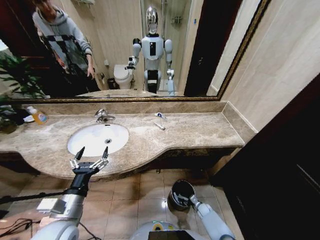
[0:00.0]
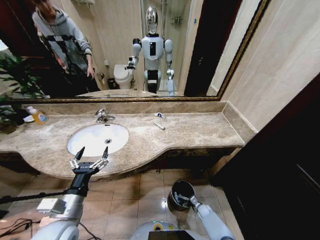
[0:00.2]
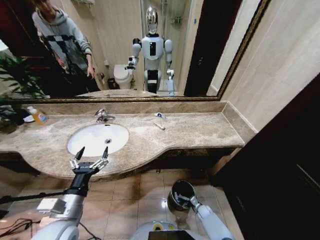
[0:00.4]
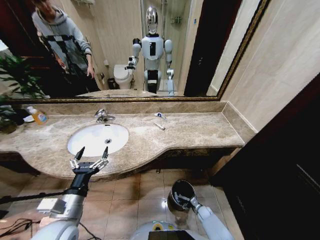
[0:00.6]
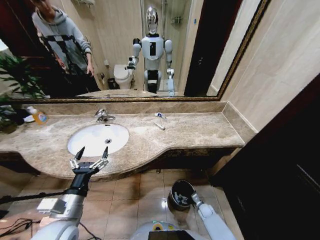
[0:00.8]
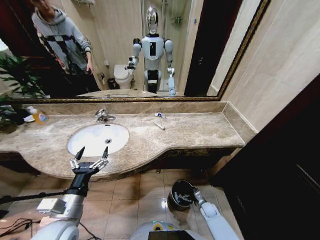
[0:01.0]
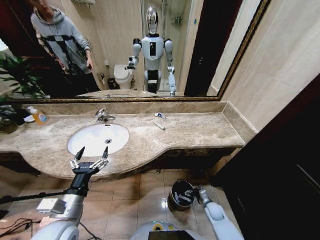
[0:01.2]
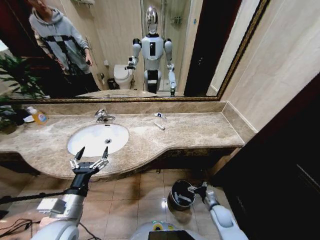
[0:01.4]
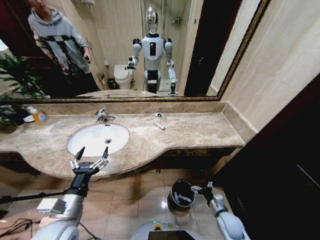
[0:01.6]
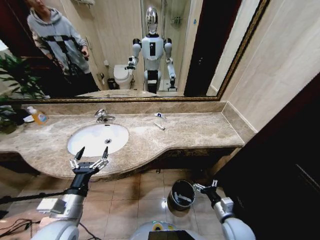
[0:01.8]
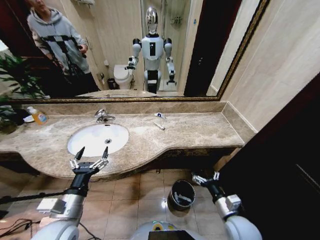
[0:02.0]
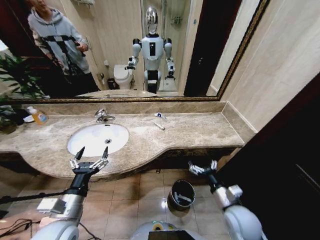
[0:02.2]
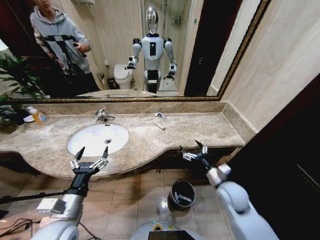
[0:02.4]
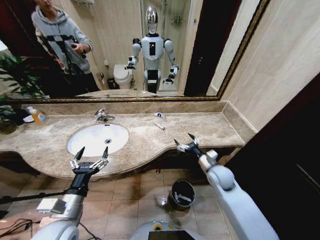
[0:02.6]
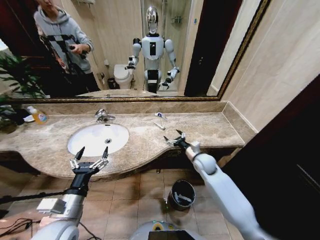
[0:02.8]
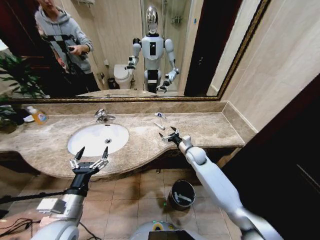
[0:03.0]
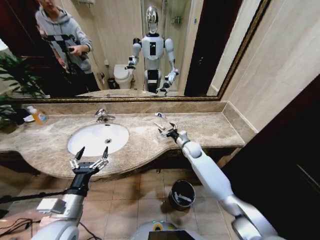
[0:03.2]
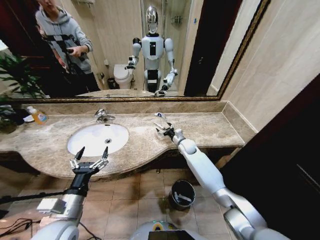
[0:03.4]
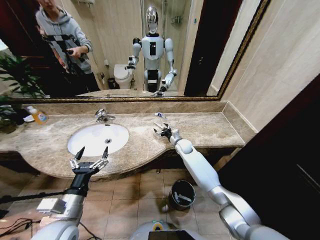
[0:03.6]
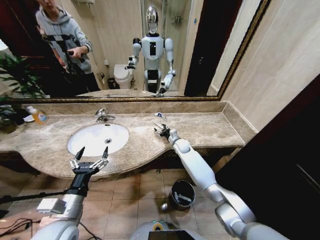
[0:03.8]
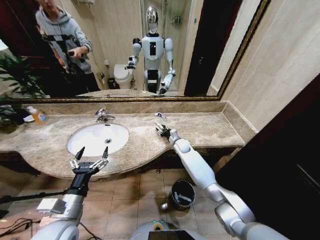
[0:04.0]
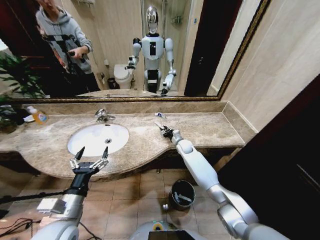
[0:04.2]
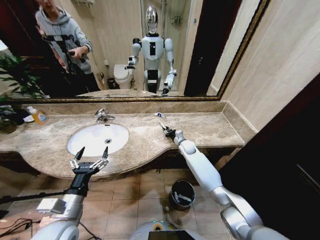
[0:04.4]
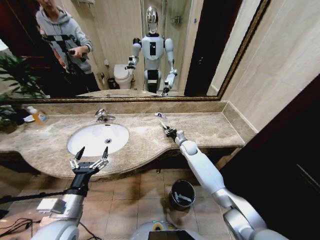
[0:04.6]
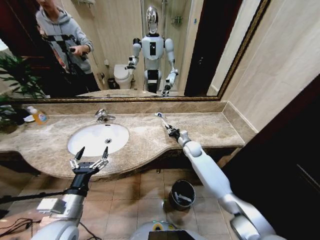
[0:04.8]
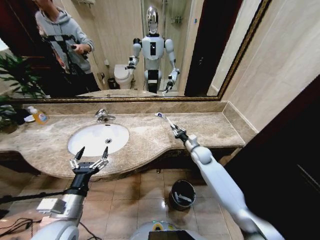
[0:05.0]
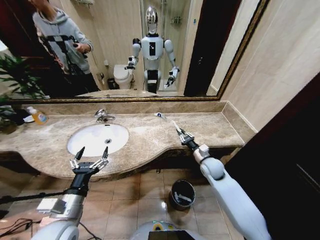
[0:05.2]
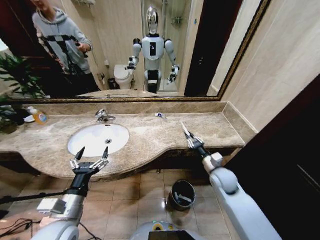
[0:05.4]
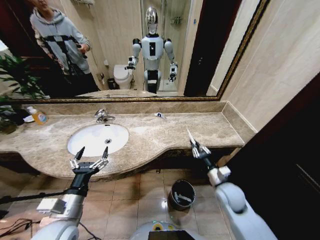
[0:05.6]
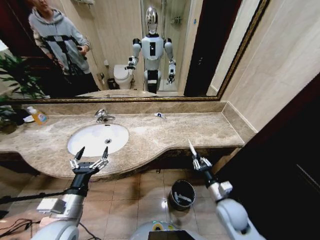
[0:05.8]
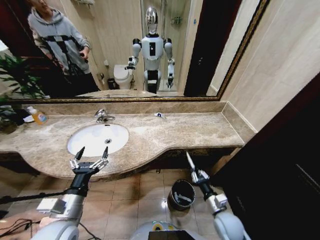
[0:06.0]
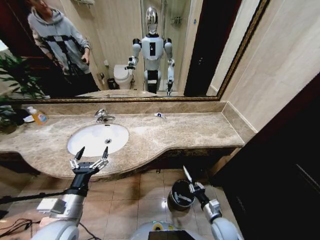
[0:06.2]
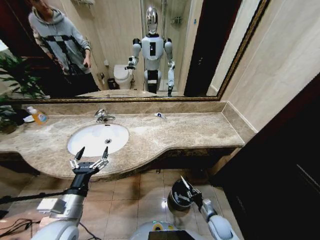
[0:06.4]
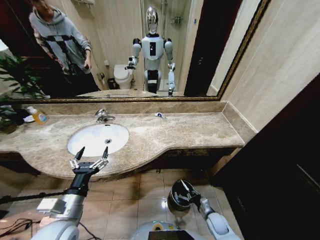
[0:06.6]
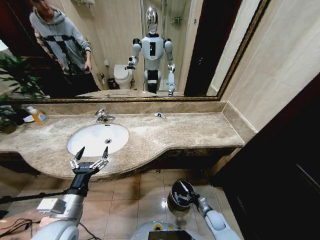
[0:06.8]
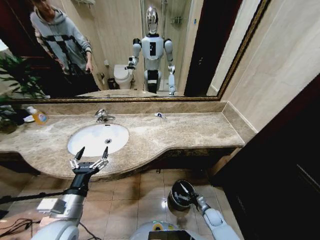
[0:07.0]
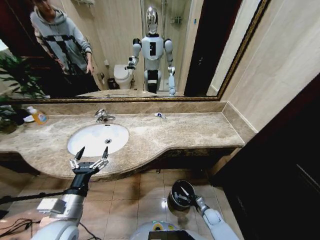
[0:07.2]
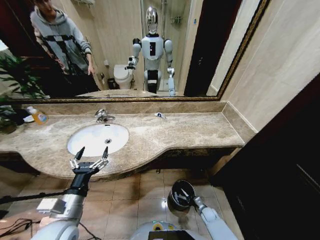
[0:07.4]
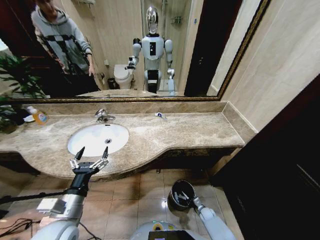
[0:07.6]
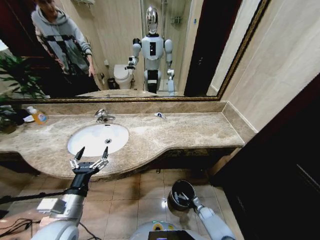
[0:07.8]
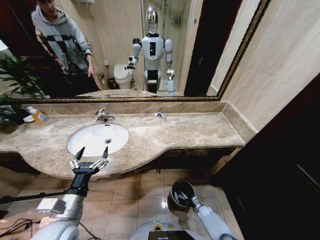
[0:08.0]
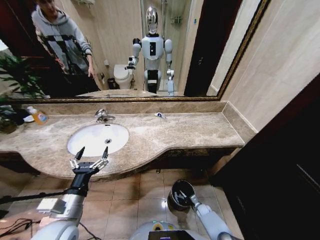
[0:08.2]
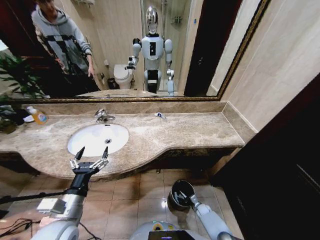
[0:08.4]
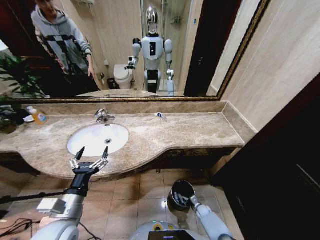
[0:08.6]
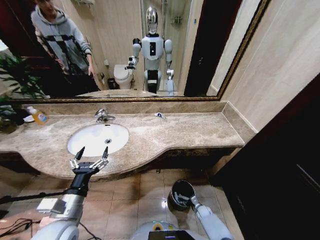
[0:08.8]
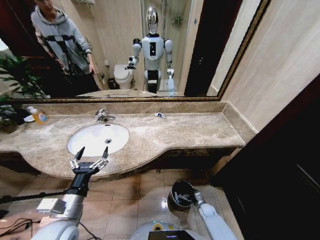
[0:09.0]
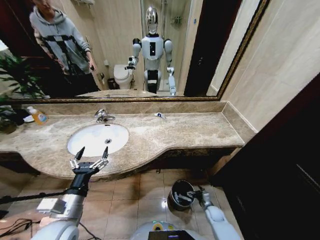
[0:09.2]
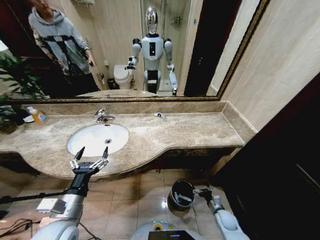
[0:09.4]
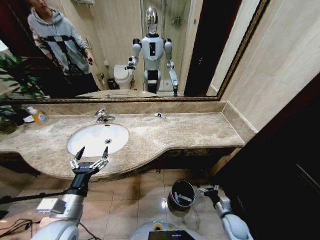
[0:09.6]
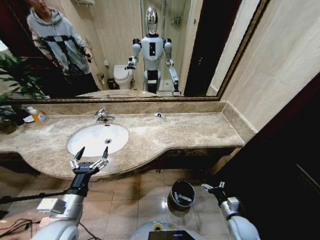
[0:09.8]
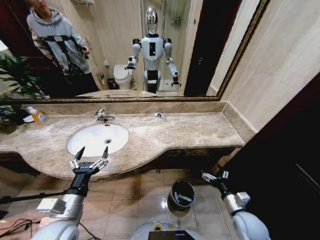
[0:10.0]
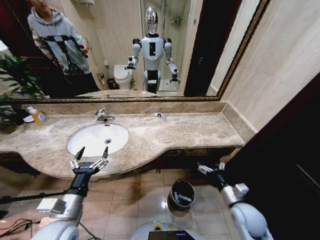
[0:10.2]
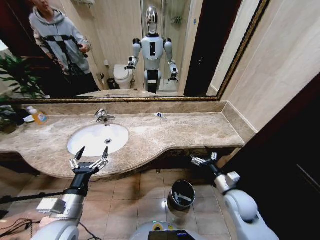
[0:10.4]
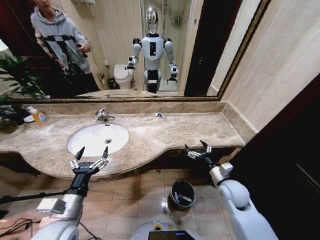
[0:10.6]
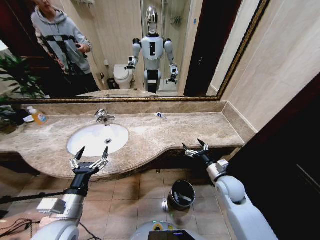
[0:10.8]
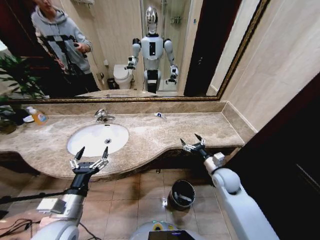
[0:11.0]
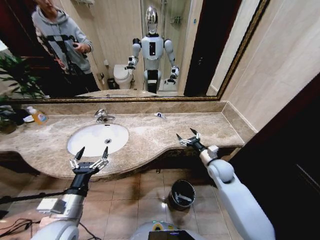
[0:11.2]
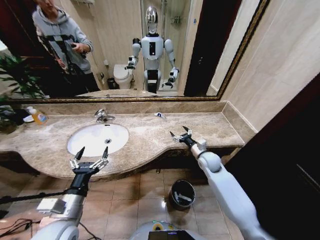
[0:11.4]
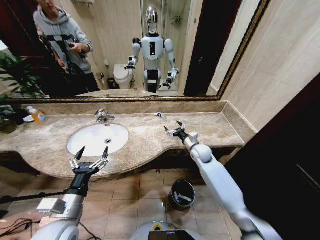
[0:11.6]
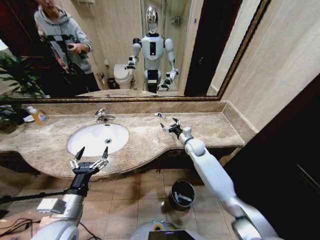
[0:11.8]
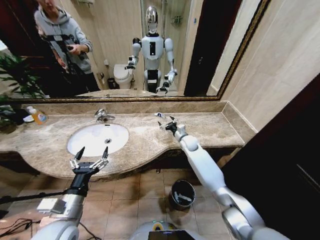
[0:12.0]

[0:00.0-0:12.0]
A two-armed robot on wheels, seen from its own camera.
Task of the whole recording: Pick up the trash from the sink and place it in the trash bin.
0:00.0 to 0:01.6: The right gripper moves upward, roughly 20 cm, and opens.
0:01.6 to 0:03.0: The right gripper shifts roughly 30 cm forward, upward and to the left.
0:03.0 to 0:04.4: The right gripper travels forward by approximately 10 cm, and closes.
0:04.4 to 0:06.0: The right gripper moves backward, some 35 cm.
0:06.0 to 0:07.6: The right gripper moves downward, about 30 cm.
0:09.0 to 0:10.4: The right gripper goes some 35 cm upward.
0:10.4 to 0:12.0: The right gripper heads forward and to the left, covering some 30 cm.

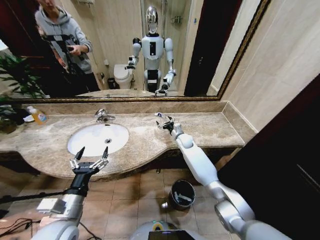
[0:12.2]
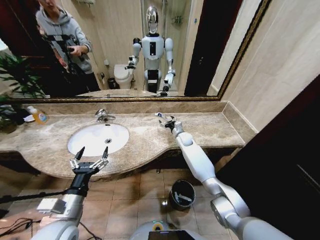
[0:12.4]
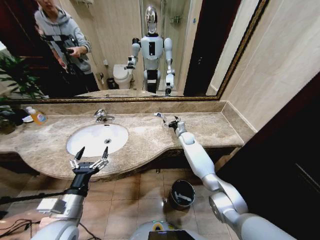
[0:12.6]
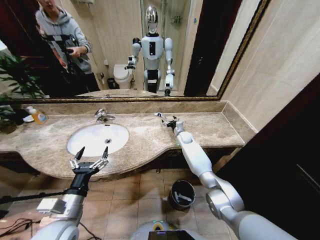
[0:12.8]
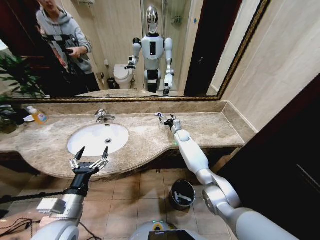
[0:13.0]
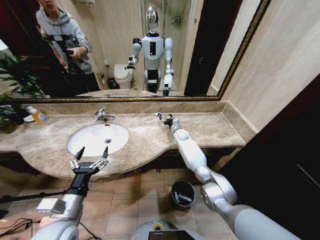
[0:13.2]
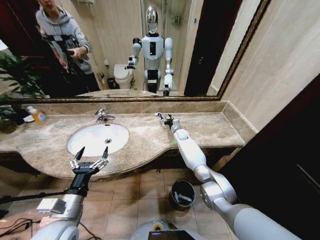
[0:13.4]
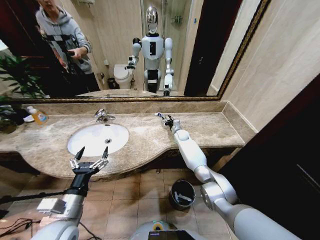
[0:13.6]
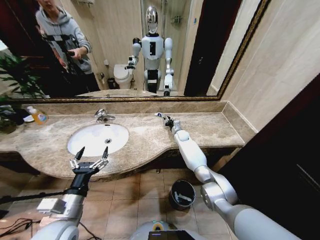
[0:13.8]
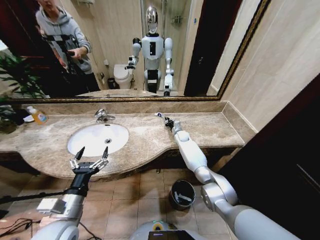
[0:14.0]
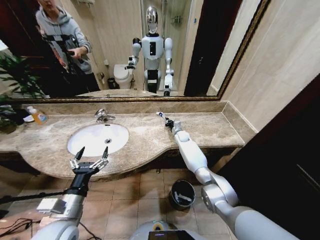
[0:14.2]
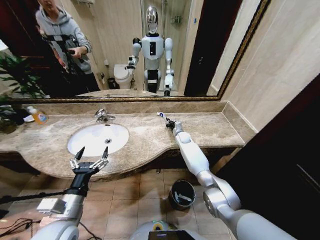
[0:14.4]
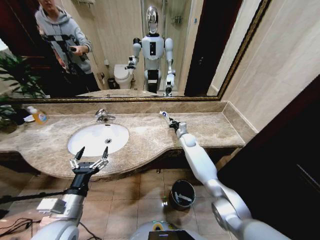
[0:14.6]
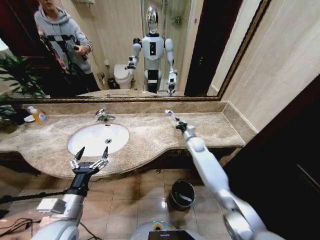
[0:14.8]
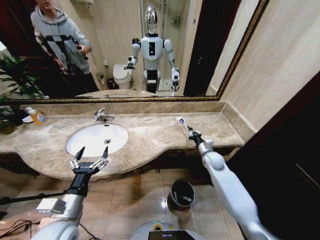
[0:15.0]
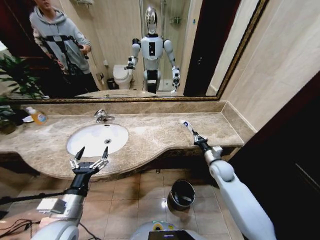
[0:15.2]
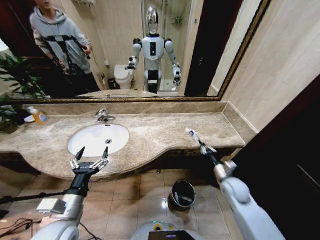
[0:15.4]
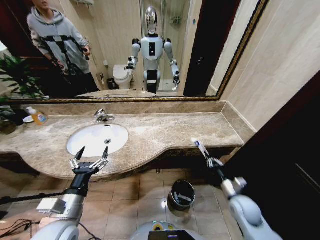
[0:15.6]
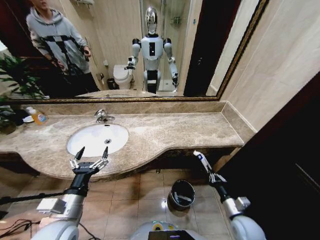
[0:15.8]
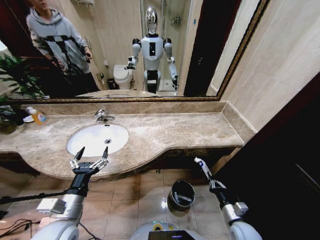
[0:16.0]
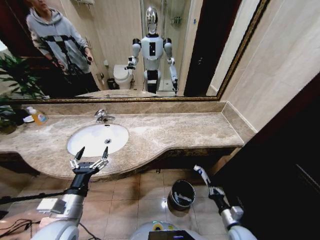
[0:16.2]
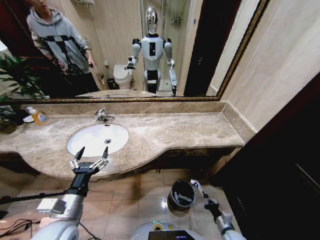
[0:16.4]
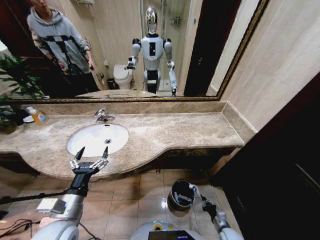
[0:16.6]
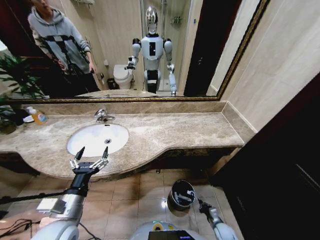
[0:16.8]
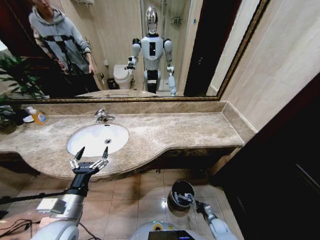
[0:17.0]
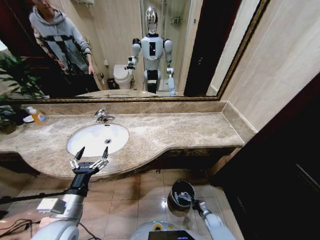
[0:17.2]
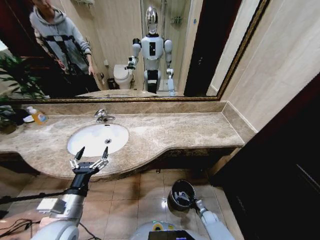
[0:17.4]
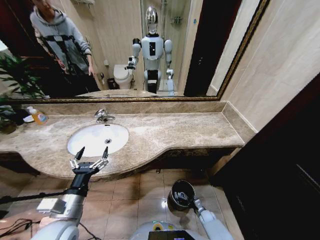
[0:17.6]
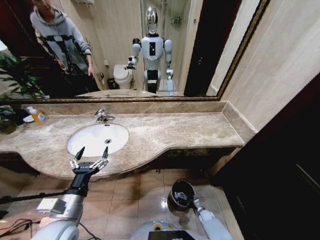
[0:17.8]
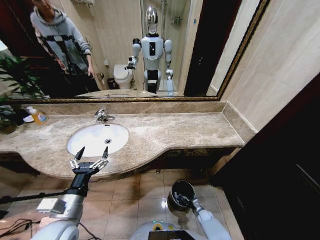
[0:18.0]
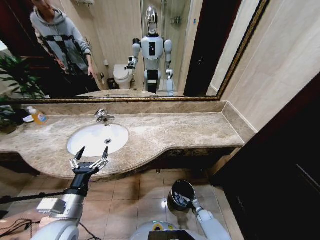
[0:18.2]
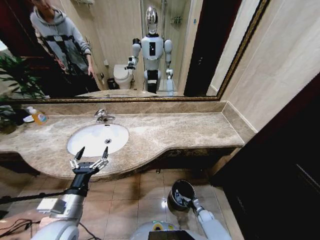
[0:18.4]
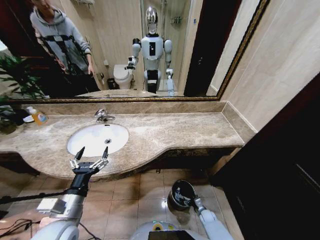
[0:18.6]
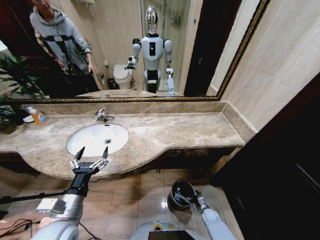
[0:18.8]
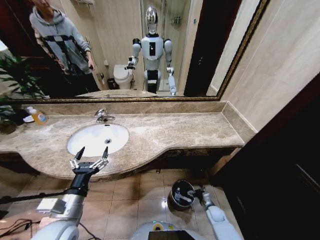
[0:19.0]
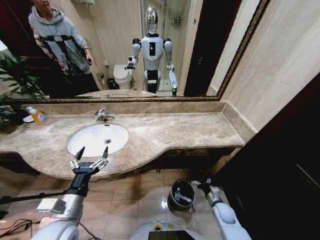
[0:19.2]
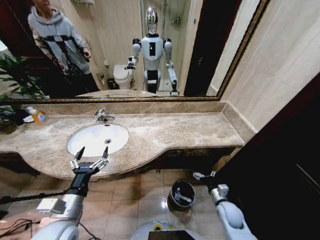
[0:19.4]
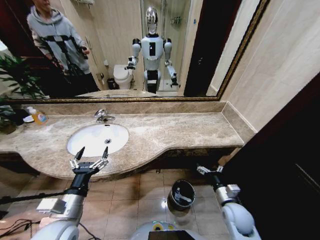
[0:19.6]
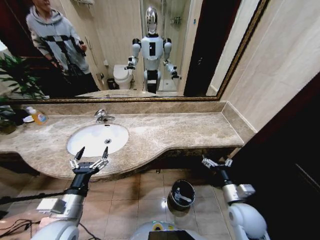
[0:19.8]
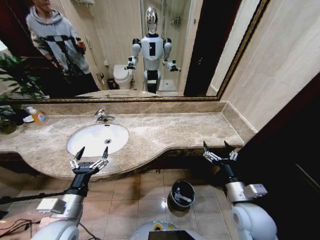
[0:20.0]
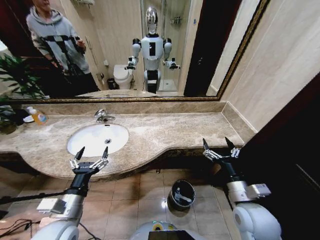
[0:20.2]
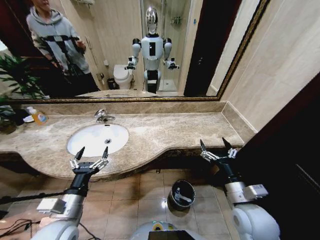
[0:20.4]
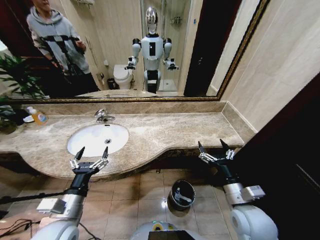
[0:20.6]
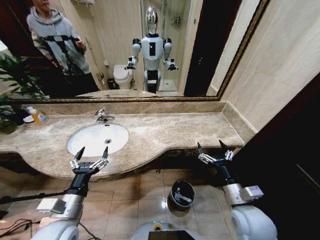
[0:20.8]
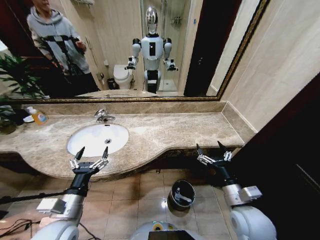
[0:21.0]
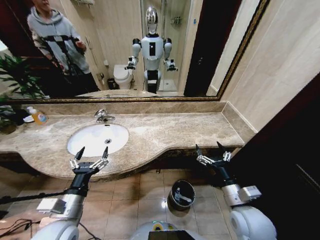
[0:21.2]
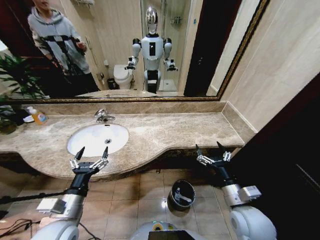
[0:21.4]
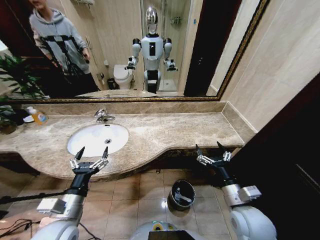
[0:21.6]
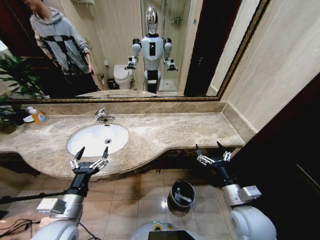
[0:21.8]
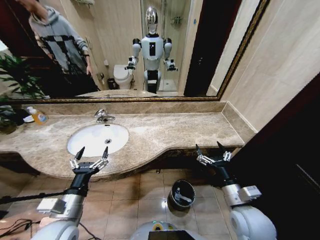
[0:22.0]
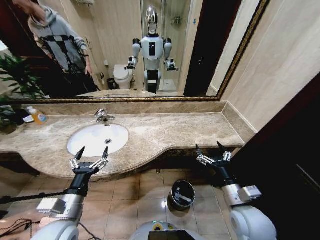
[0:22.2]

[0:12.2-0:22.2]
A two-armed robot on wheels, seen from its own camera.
Task of the whole recording: Pick up the trash from the sink and place it in the trash bin.
0:12.2 to 0:13.6: The right gripper moves forward, approximately 5 cm, and closes.
0:13.6 to 0:15.0: The right gripper heads backward and to the right, covering roughly 25 cm, and closes its fingers.
0:15.0 to 0:16.4: The right gripper shifts roughly 35 cm backward and downward.
0:16.4 to 0:18.0: The right gripper is displaced downward and forward by some 20 cm.
0:18.0 to 0:19.4: The right gripper is displaced upward by about 25 cm, and opens.
0:19.4 to 0:20.8: The right gripper goes roughly 20 cm upward.
0:20.8 to 0:22.2: Both grippers stay about where they are.
